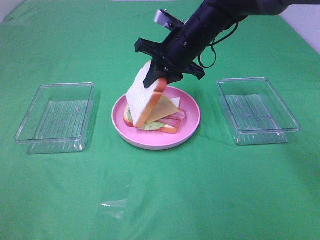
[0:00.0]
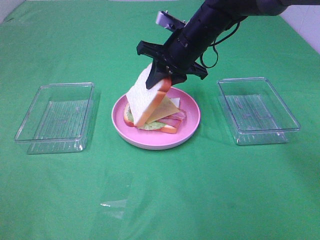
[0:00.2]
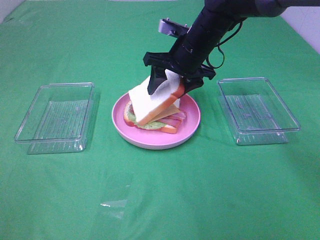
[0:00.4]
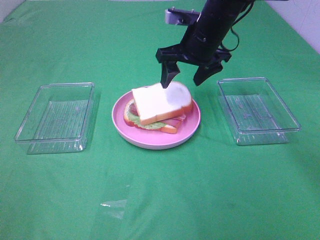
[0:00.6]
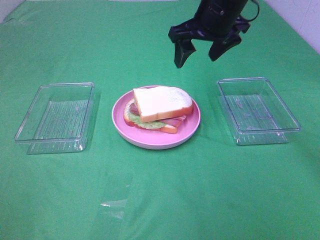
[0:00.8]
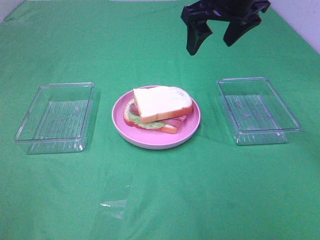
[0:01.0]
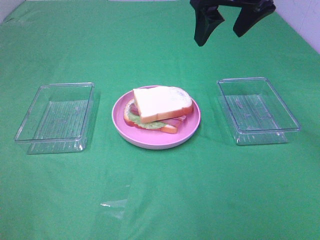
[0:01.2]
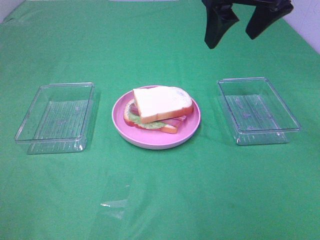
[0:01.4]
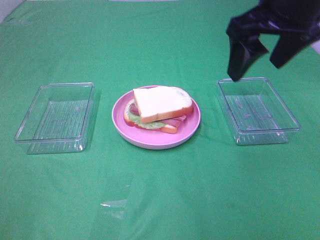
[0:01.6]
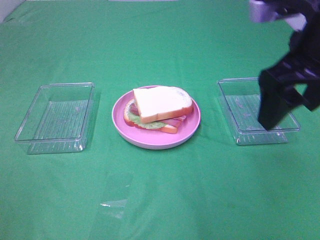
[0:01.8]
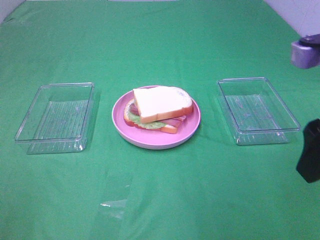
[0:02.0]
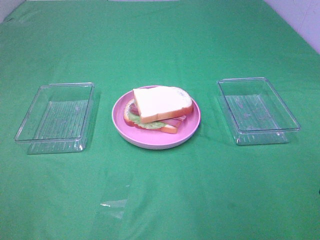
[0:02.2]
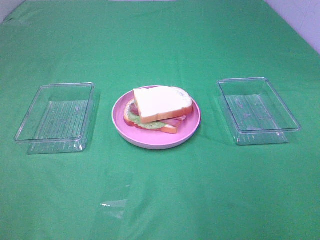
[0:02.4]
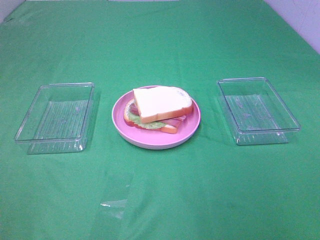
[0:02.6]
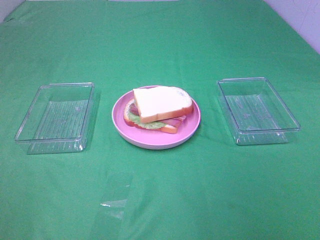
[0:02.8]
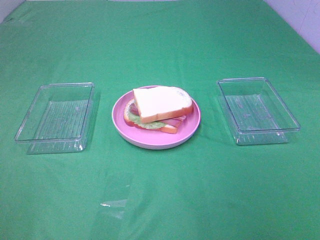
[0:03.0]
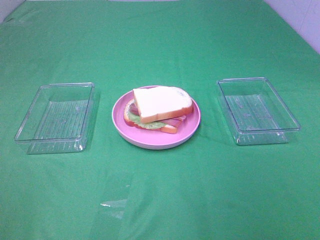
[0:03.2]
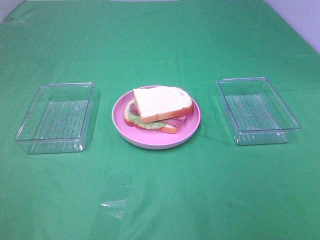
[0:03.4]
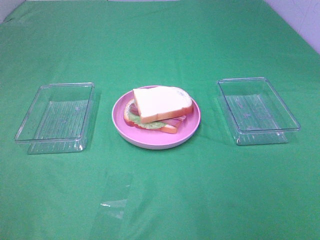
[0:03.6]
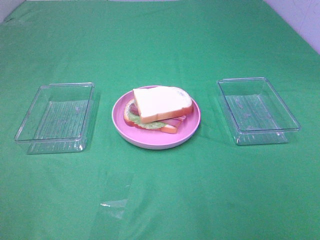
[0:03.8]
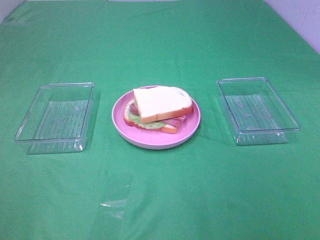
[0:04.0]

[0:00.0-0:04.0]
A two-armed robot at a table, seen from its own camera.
Task of the whole recording: Make sandwiches.
0.0 to 1.4 s: The right gripper heads upward, backward and to the right, covering approximately 20 cm, and opens up.
1.4 to 2.6 s: The right gripper moves backward and to the right, about 30 cm.

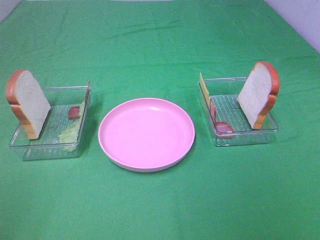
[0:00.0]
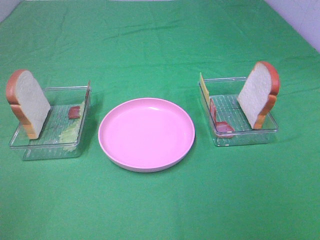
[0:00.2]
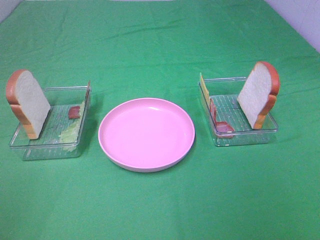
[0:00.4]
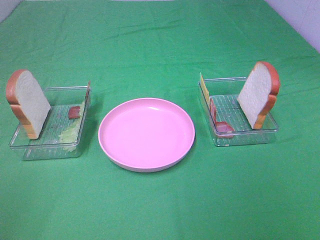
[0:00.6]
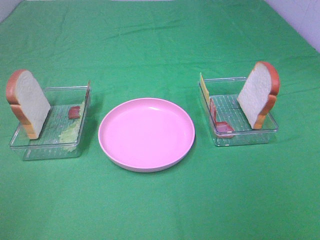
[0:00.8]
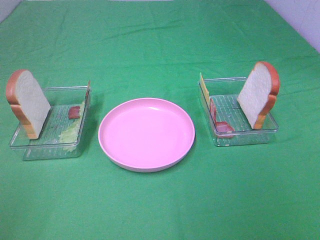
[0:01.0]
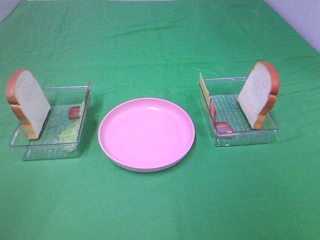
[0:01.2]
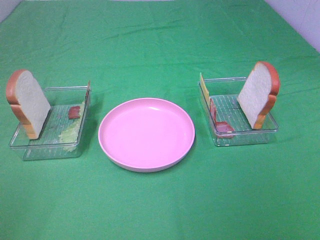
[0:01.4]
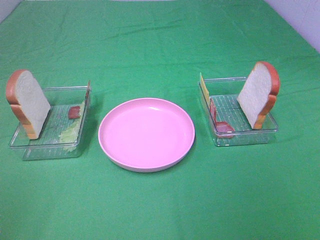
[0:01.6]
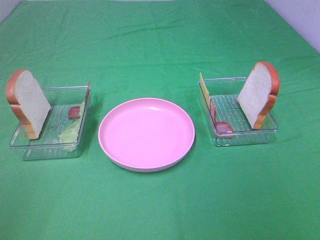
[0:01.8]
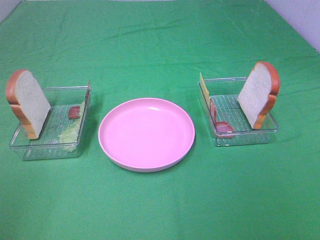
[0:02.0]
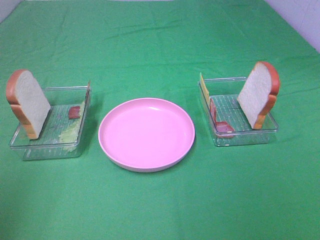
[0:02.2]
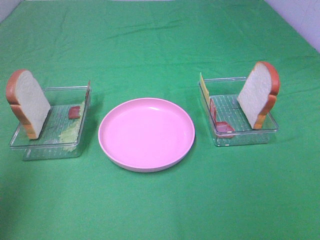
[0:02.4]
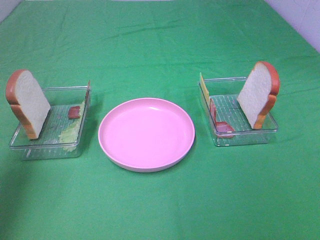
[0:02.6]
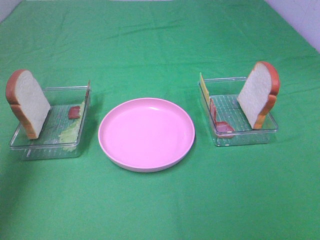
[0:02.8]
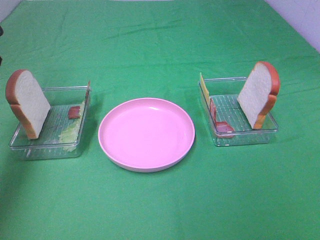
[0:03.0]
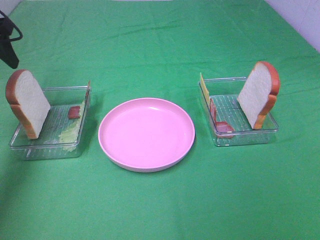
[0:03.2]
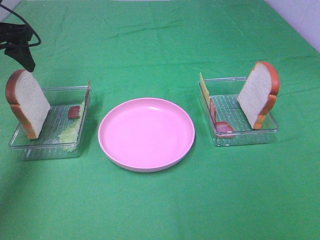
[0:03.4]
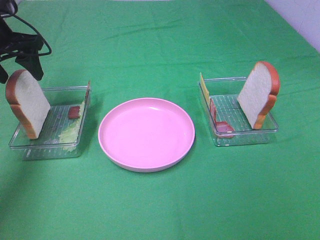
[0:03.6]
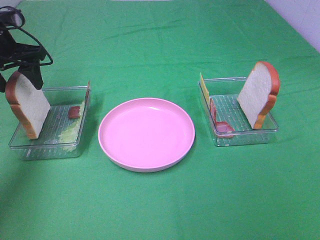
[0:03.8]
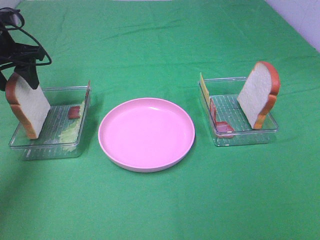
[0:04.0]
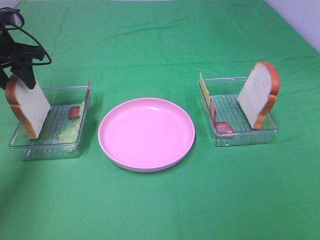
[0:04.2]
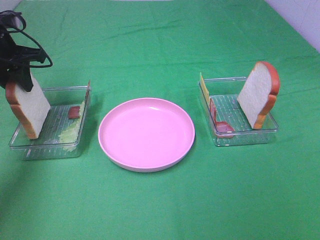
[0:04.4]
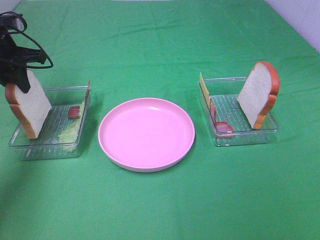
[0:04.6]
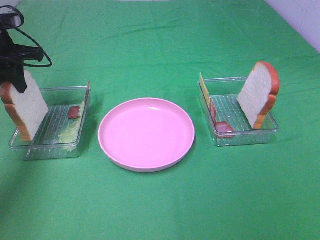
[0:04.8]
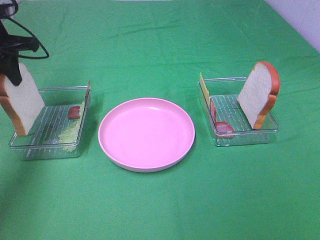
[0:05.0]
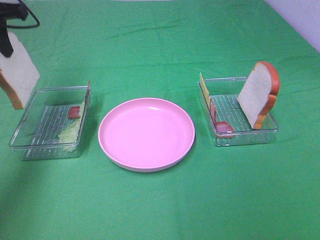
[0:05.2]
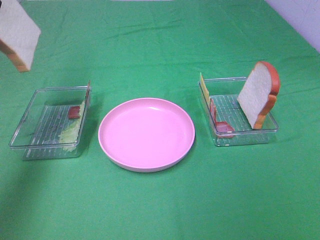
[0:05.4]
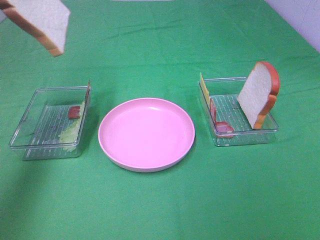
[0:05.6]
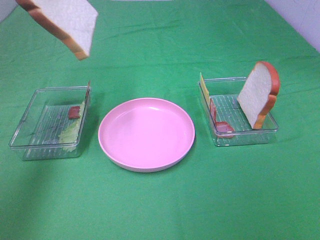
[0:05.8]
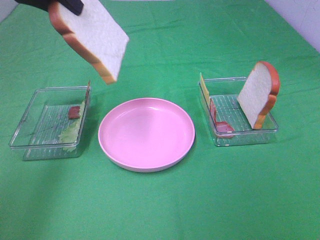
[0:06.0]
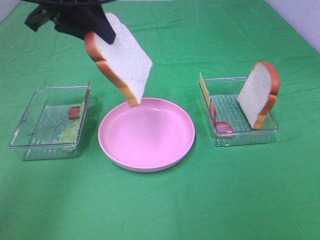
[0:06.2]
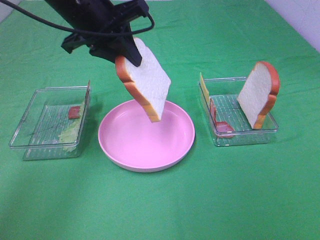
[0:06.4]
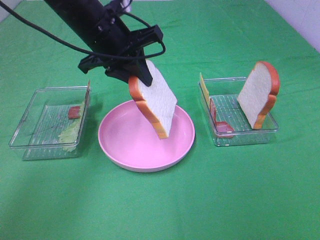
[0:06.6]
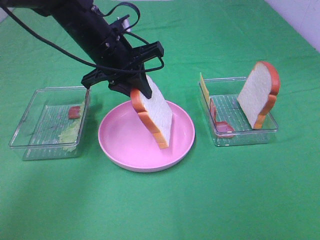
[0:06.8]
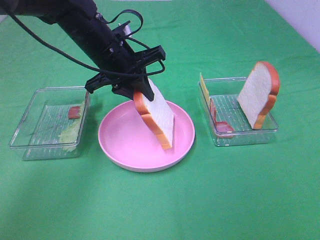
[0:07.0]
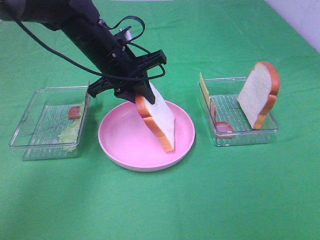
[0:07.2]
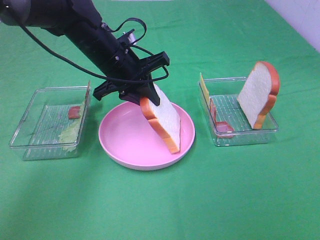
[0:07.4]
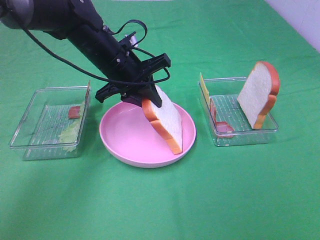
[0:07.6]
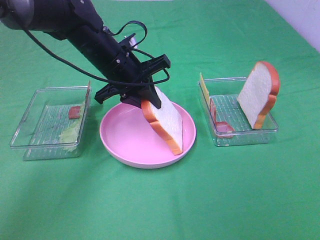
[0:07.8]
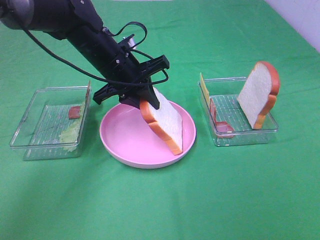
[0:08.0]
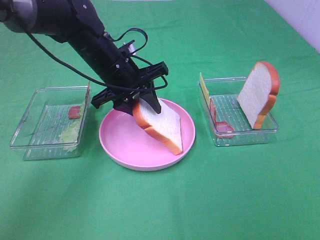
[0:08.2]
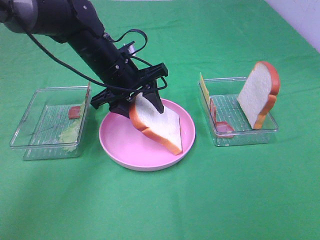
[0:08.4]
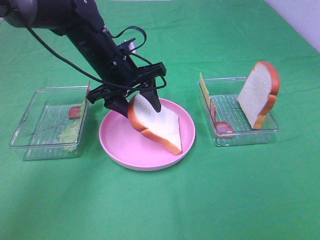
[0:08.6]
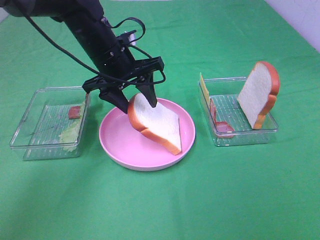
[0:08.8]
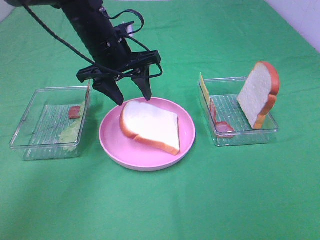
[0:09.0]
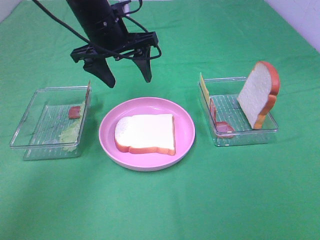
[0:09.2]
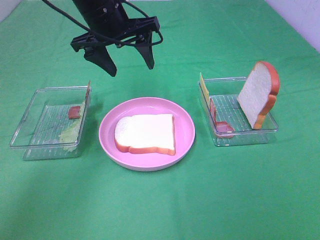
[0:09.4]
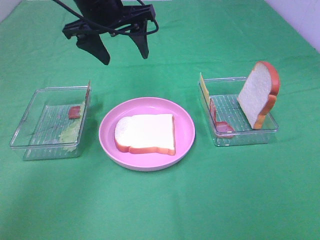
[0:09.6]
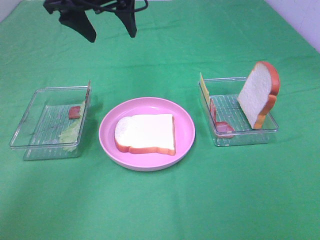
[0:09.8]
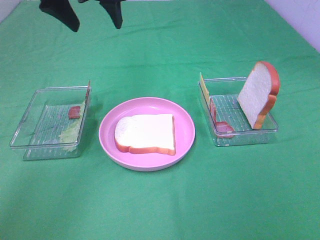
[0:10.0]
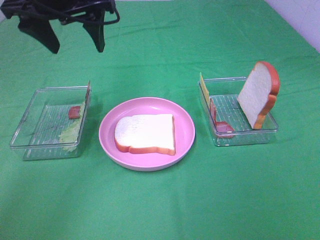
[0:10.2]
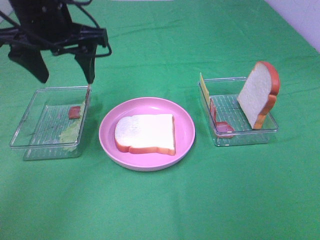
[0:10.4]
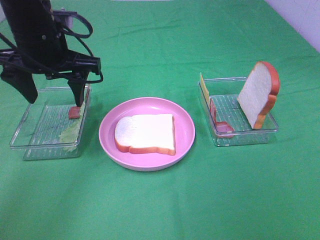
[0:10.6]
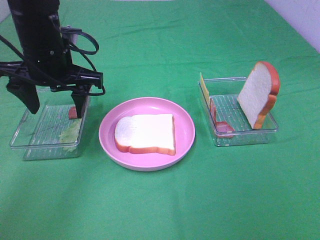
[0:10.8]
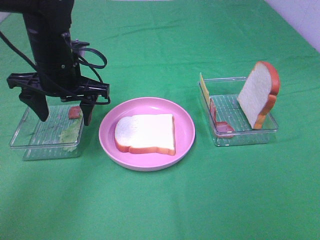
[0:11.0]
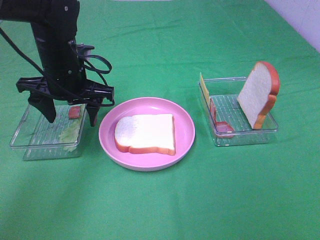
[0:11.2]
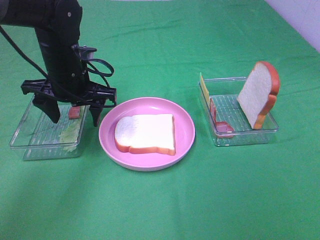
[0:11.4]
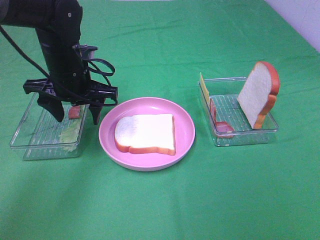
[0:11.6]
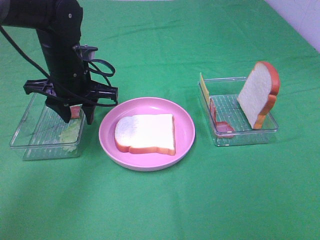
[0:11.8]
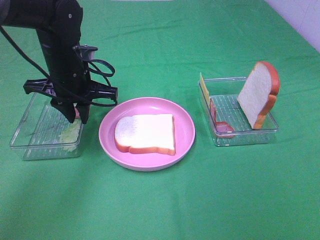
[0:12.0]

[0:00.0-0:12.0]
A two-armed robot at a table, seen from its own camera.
Task of the whole recording: Make sandwiches.
Step, 0.0 to 4.4 s: Left hand:grab the bread slice.
Step, 4.6 to 9.0 s: Left hand:place the bread slice on the plate.
0.0 to 1.6 s: The two grippers keep their place.
1.6 to 3.0 s: The left gripper travels forward by some 35 cm.
3.0 to 4.4 s: The left gripper is displaced downward and forward by about 10 cm, and closes its fingers.
4.4 to 6.0 s: The left gripper is displaced upward, to the right and backward by about 20 cm.
6.0 to 7.6 s: The left gripper moves downward and to the right, about 20 cm.
7.6 to 9.0 s: The left gripper opens up.
9.0 to 10.4 s: The left gripper shifts approximately 10 cm upward, to the left and backward.
10.4 to 12.0 s: The left gripper is displaced downward by roughly 10 cm, and closes.

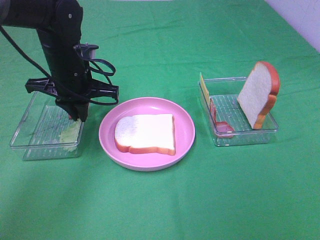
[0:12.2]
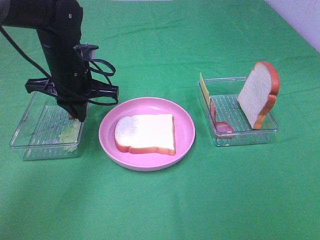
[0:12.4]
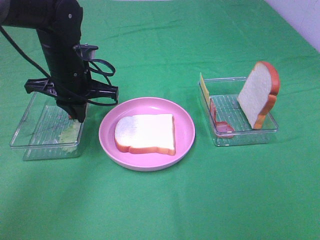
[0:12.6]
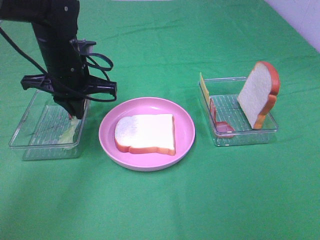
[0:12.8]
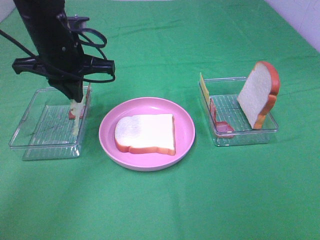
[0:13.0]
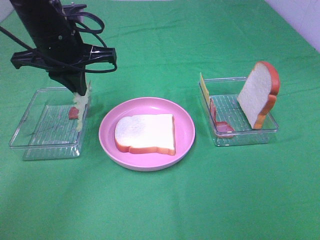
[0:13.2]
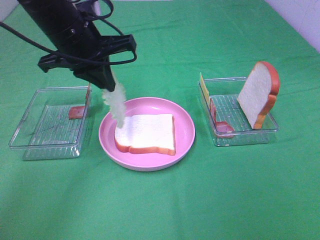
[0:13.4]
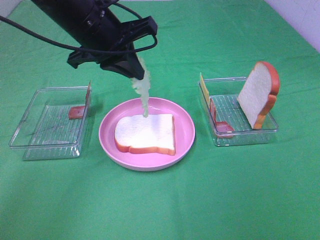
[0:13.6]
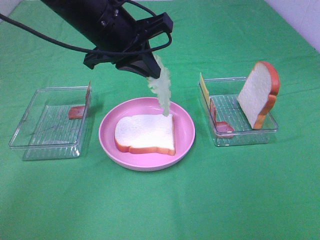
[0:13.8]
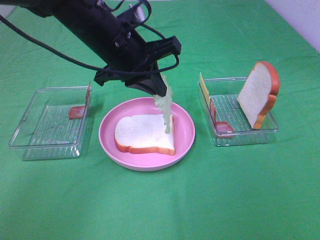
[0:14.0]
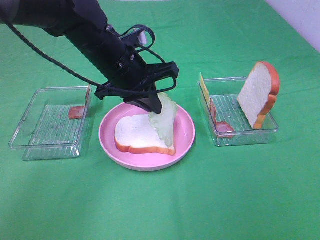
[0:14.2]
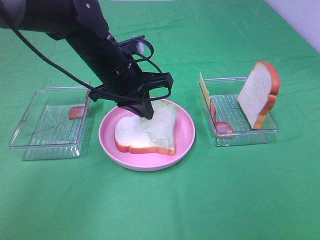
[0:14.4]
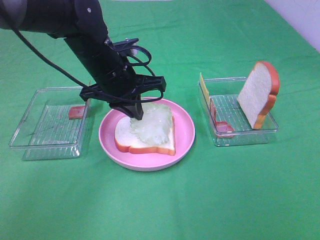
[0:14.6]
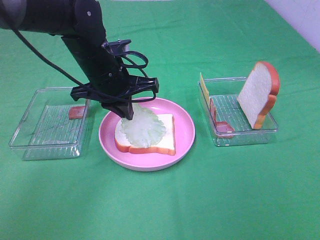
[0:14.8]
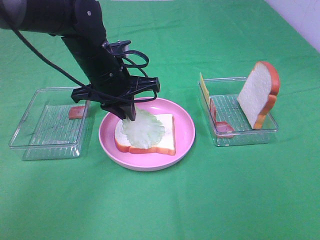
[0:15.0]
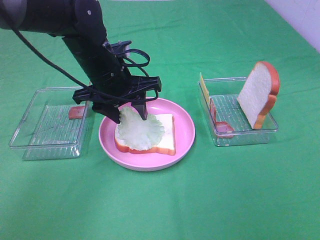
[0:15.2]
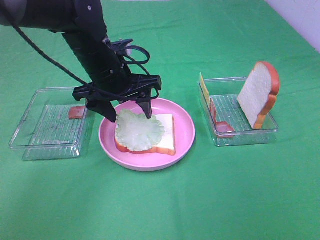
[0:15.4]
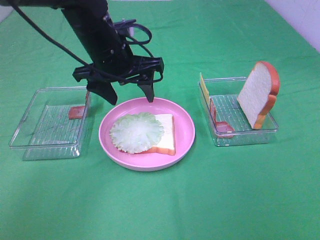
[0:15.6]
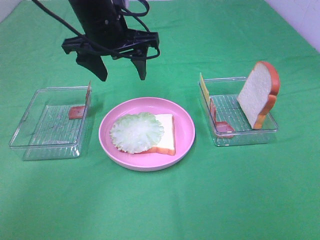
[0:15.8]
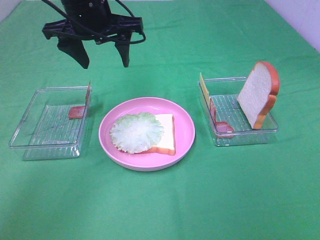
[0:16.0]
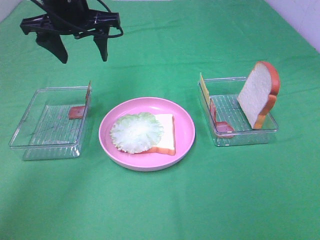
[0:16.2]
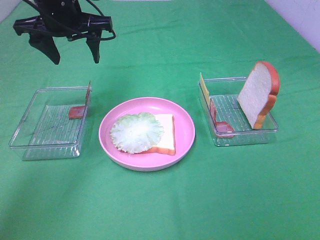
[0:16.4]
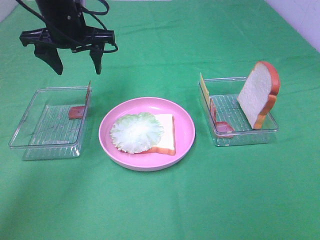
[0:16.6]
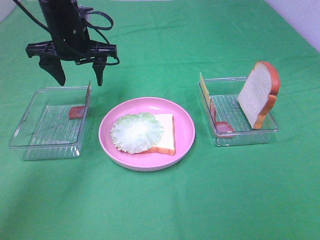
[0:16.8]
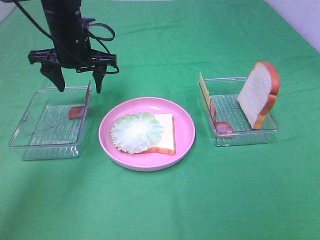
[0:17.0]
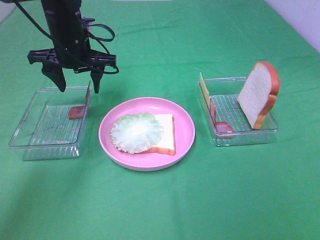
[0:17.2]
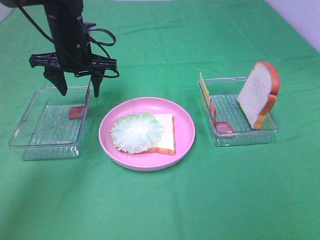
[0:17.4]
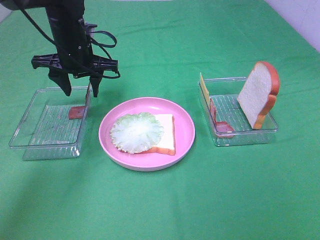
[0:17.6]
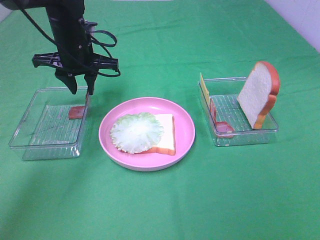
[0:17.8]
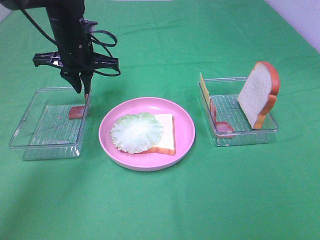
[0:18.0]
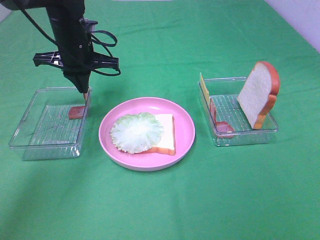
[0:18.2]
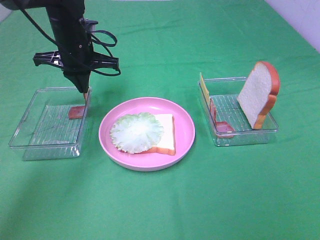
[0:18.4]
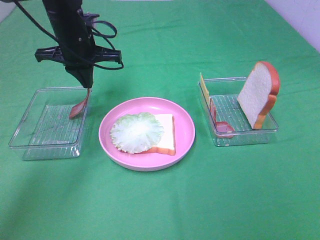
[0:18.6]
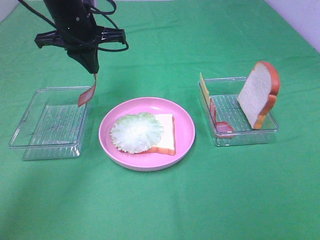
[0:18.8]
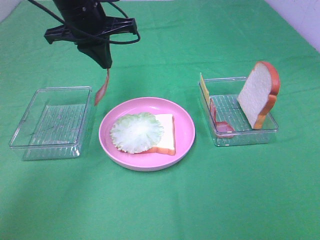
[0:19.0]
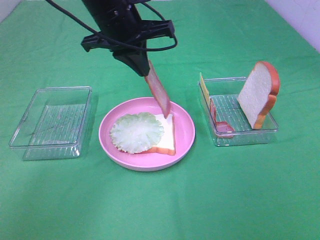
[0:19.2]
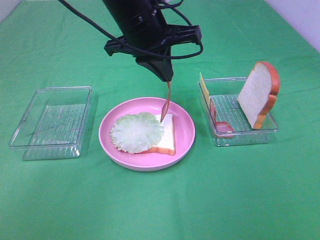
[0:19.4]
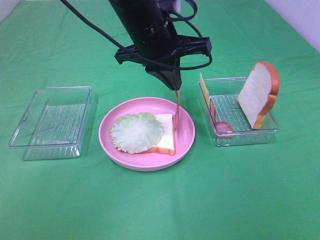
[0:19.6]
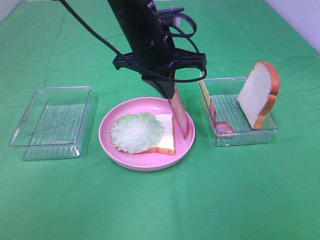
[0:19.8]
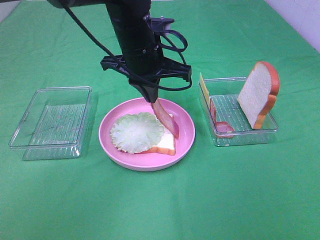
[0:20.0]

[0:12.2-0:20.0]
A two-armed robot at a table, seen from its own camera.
Task of the whole recording: Make sandwiches.
Step, 12.8 to 15.4 s: Left hand:place the lettuce slice on the bread slice.
Step, 15.6 to 18.4 s: Left hand:grab the bacon.
12.2 to 13.8 s: The left gripper travels upward and to the right by roughly 10 cm.
13.8 to 15.4 s: The left gripper heads downward, covering approximately 5 cm, and opens.
15.4 to 16.8 s: The left gripper is displaced forward and to the left by about 10 cm, and reaches about 10 cm upward, then returns.
16.8 to 18.4 s: The left gripper closes its fingers.
18.4 to 20.0 s: The left gripper travels to the right and backward by approximately 15 cm.
